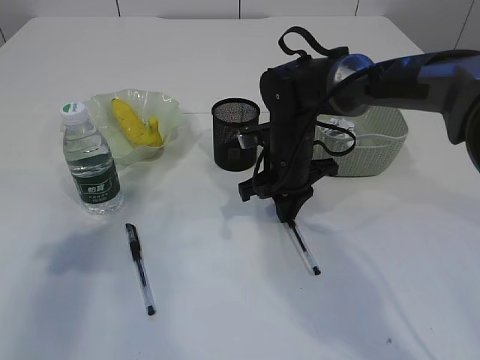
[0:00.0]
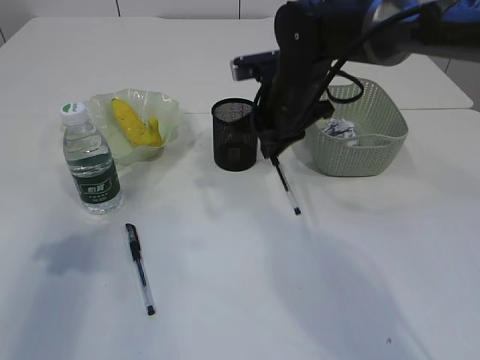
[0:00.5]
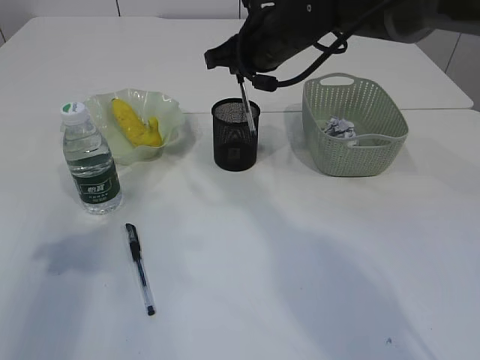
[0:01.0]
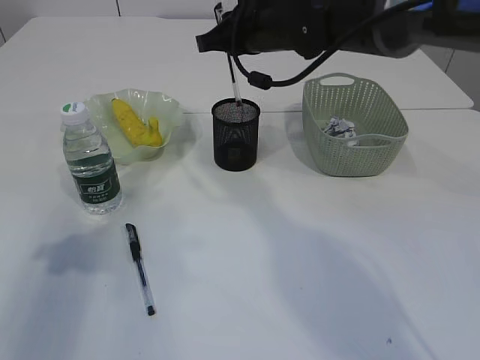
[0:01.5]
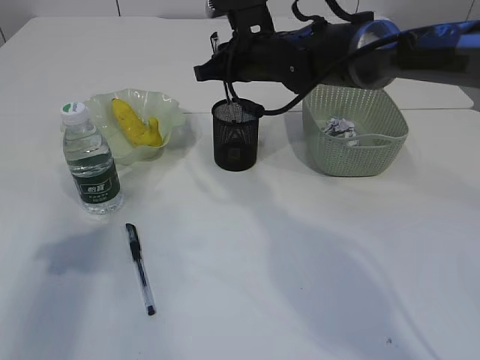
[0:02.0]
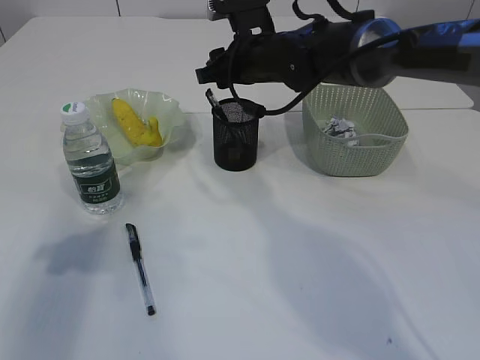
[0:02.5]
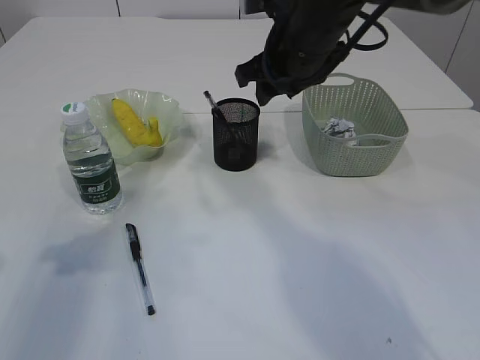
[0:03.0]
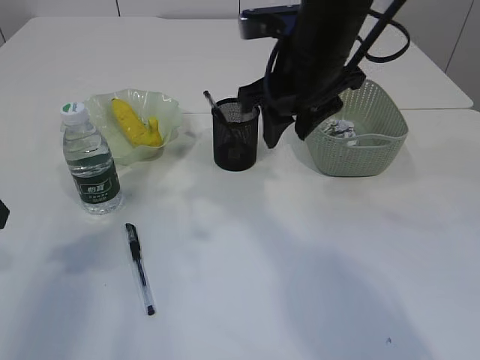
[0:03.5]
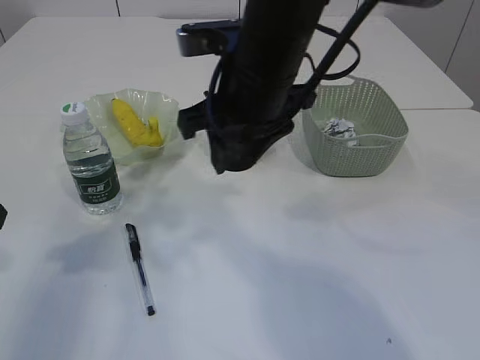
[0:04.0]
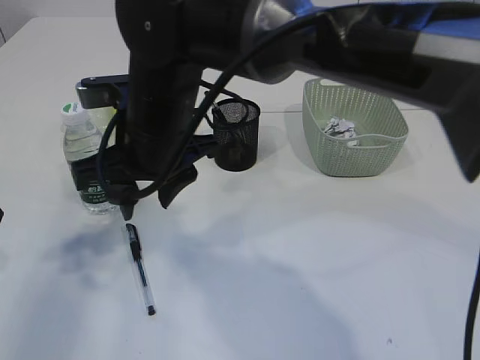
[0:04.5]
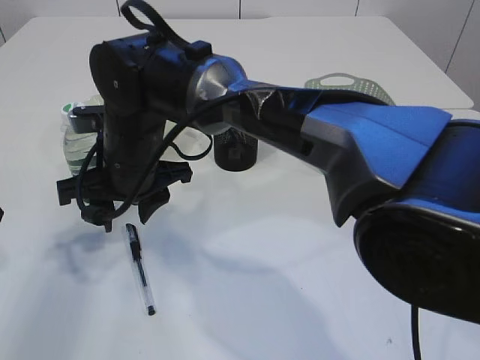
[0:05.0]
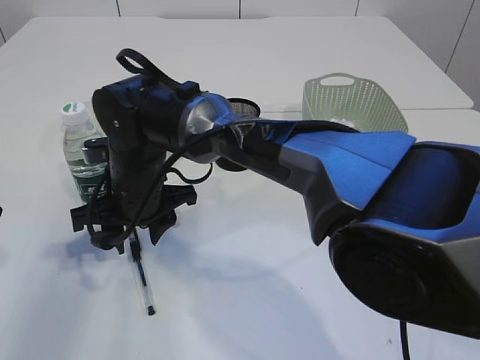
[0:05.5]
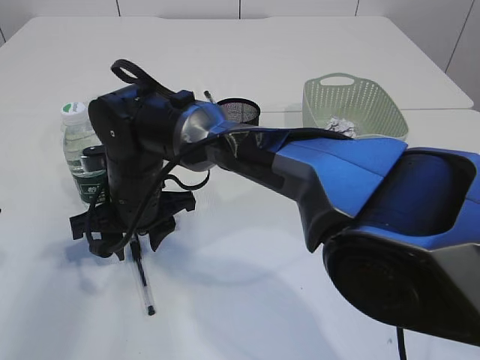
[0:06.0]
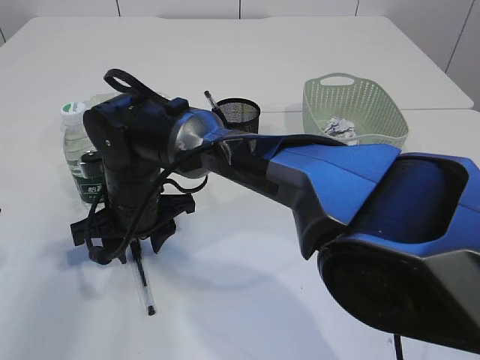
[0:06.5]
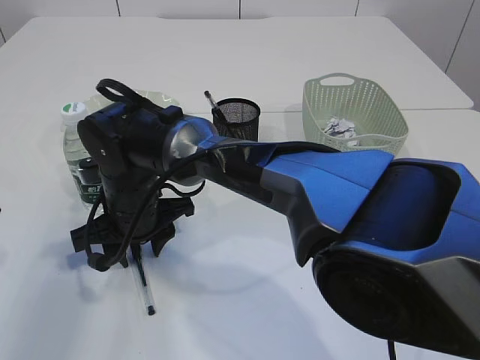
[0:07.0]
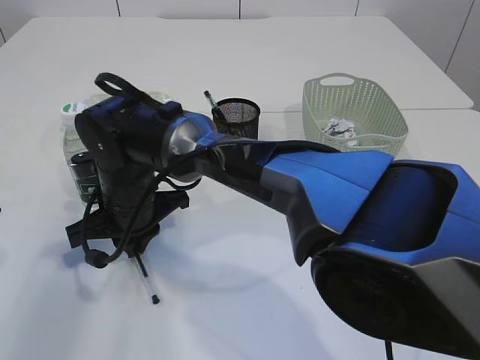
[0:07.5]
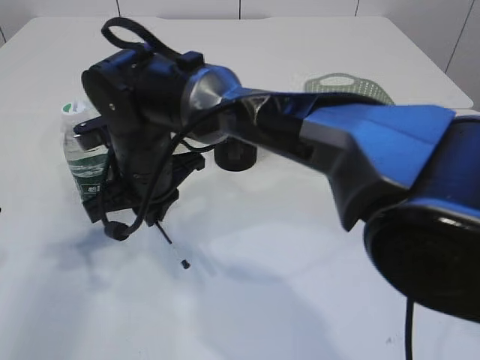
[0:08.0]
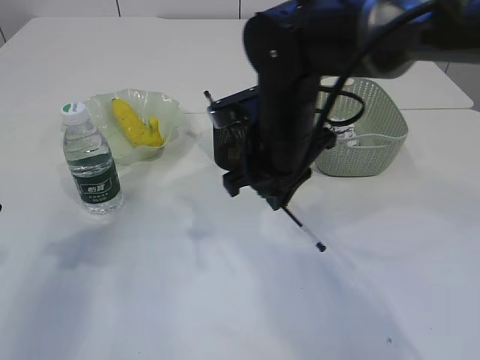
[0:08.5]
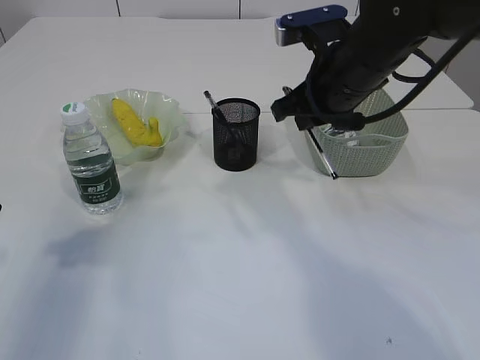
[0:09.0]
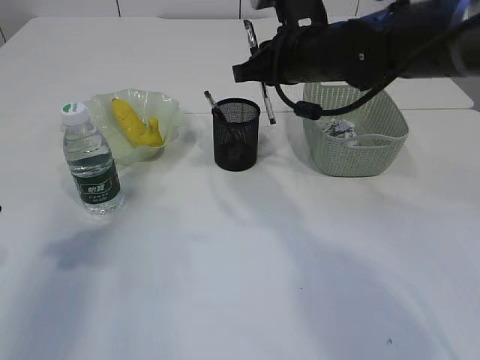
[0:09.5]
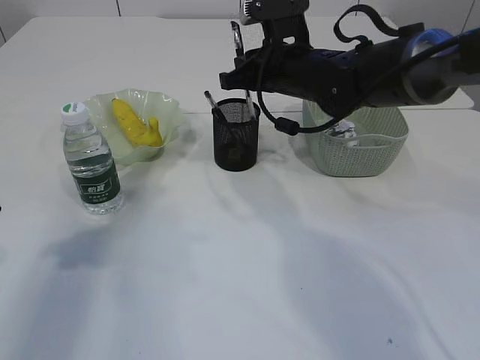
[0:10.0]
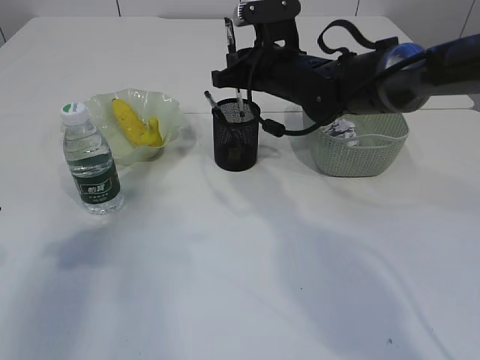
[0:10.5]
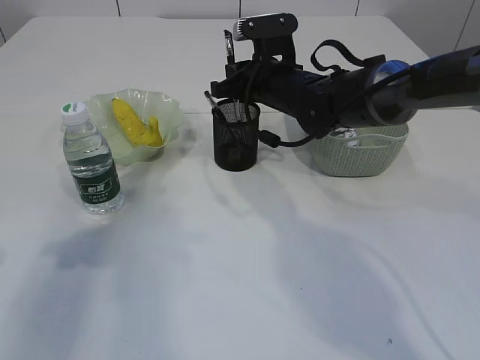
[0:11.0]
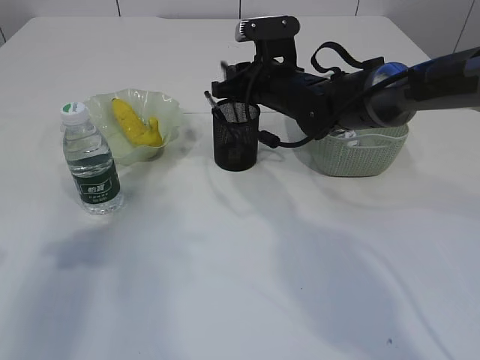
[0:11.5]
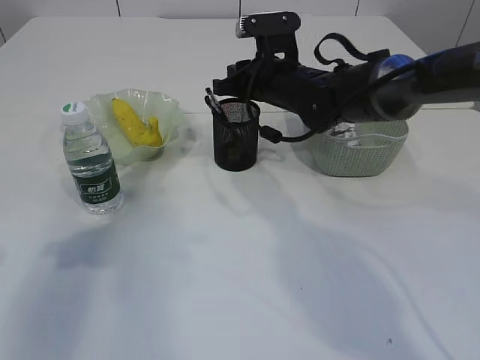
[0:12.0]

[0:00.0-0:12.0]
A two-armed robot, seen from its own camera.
Step, 0:00.5 to 0:02.5: Place the pen into the pen holder.
Step, 0:03.0 to 0:07.5: Pick up the pen with right arm.
0:00.0 to 0:02.0: The right gripper shifts some 10 cm upward and forward.
0:02.0 to 0:04.0: The right gripper shifts about 15 cm backward and upward, and opens up.
0:04.0 to 0:06.0: The right gripper moves downward and to the left, approximately 20 cm.
0:06.0 to 0:08.0: The right gripper closes its fingers.
0:08.0 to 0:10.0: The right gripper goes approximately 20 cm to the right and forward.
0:10.0 to 0:12.0: There are only small adjustments of the grippers.

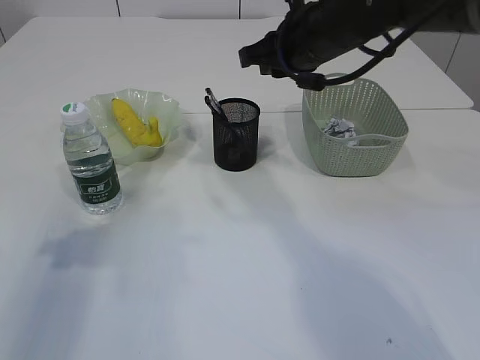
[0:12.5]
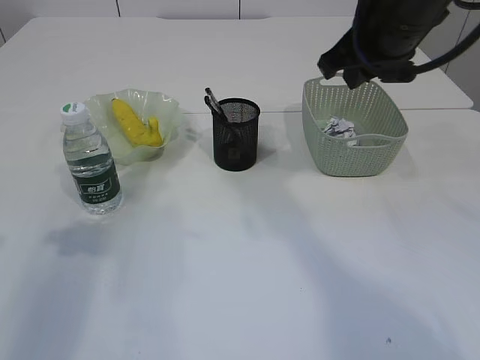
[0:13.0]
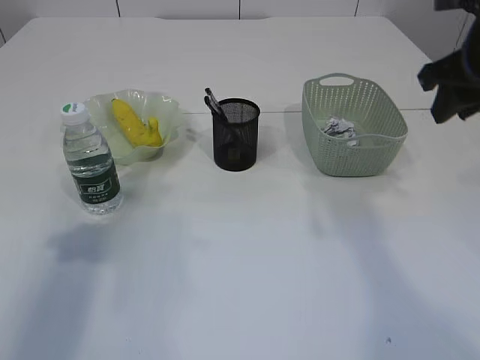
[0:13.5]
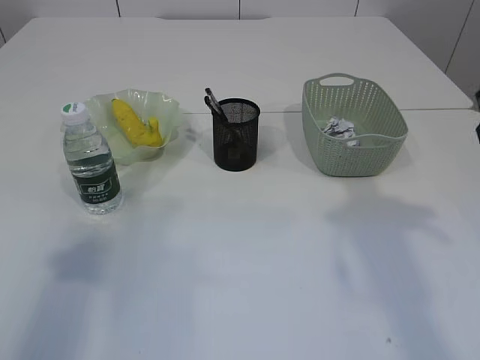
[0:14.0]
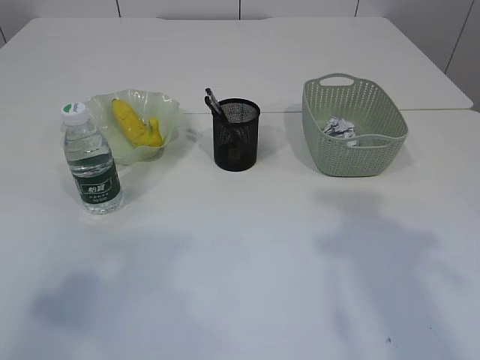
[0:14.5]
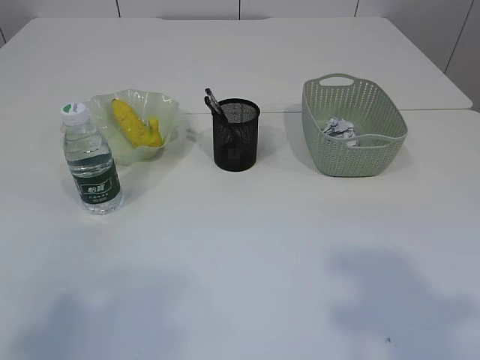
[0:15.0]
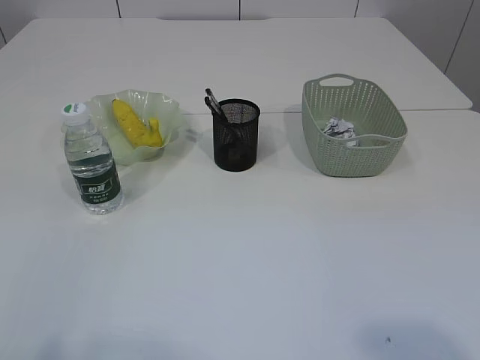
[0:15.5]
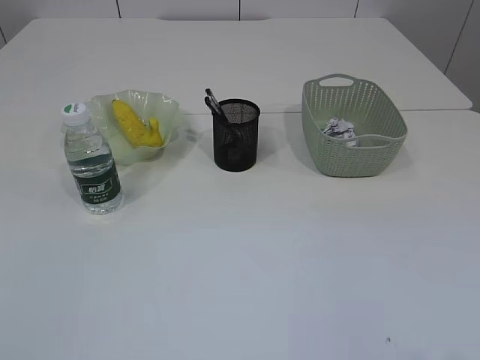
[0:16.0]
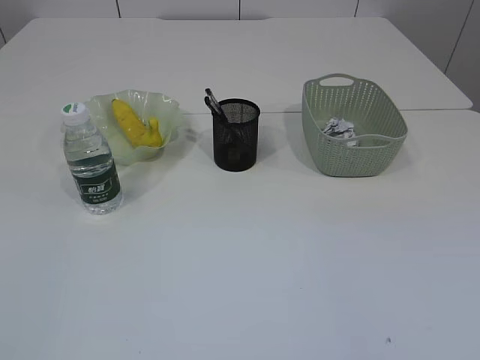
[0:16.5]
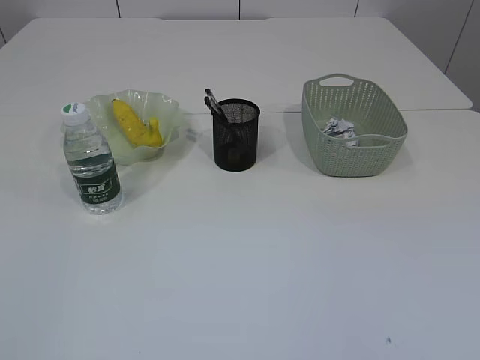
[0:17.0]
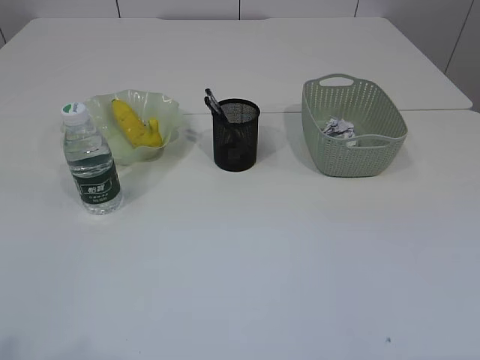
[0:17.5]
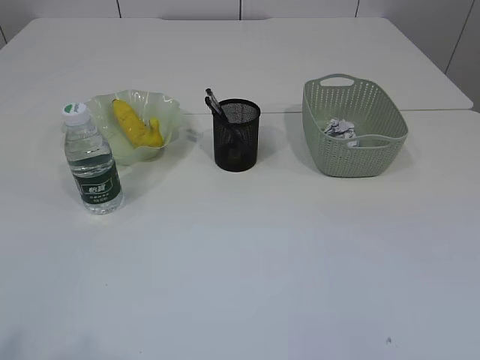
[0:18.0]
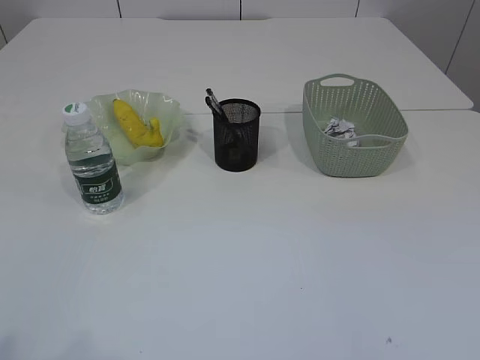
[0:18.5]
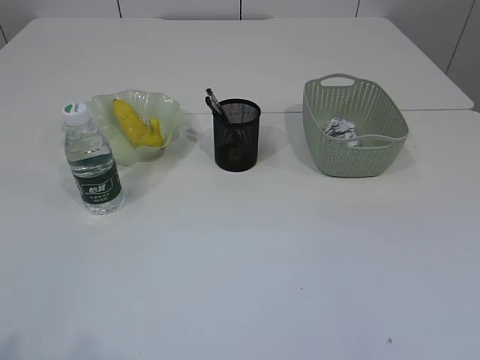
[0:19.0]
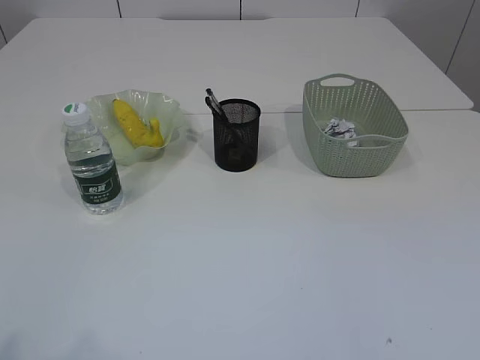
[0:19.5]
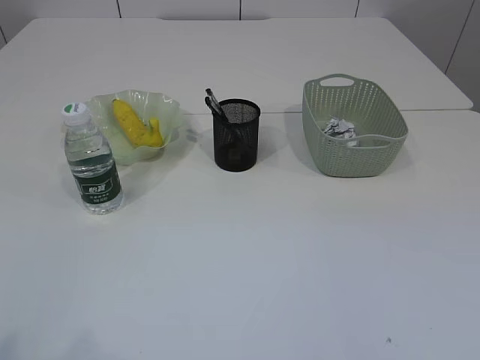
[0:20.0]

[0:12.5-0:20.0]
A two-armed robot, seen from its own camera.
0:12.5 to 0:14.5: The left gripper travels backward and upward by roughly 15 cm. The right gripper goes roughly 25 cm backward and to the right.
0:14.5 to 0:16.5: The left gripper moves backward, approximately 15 cm.
